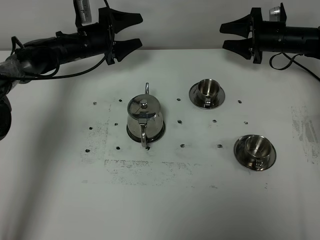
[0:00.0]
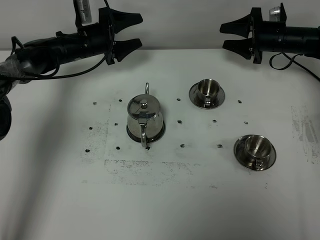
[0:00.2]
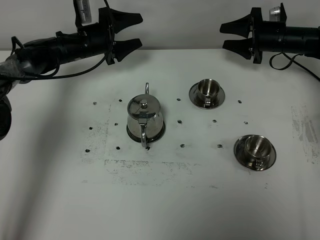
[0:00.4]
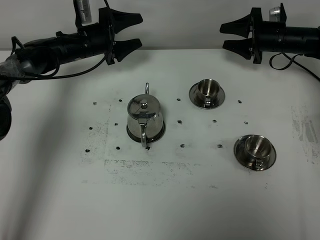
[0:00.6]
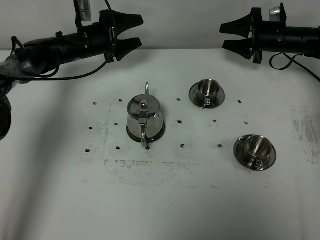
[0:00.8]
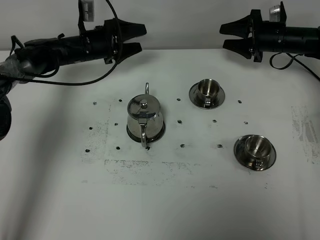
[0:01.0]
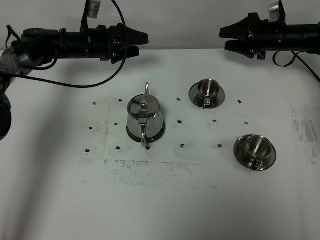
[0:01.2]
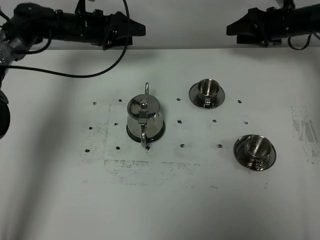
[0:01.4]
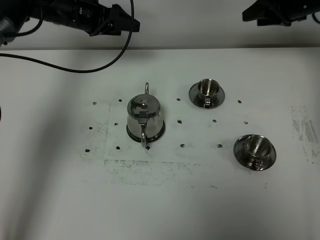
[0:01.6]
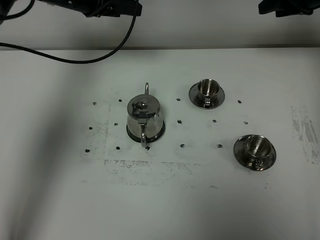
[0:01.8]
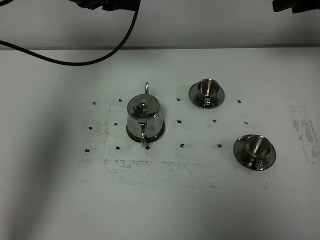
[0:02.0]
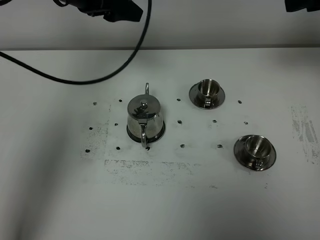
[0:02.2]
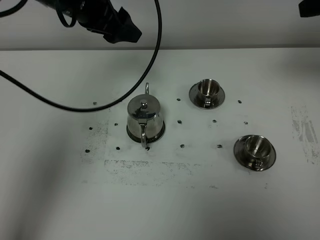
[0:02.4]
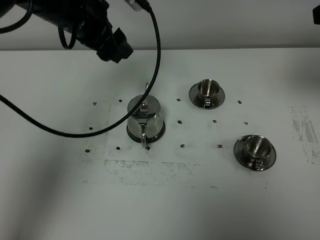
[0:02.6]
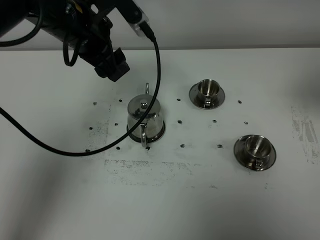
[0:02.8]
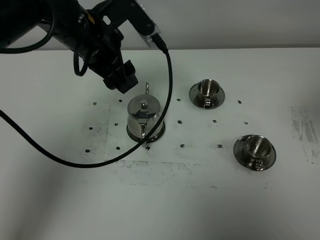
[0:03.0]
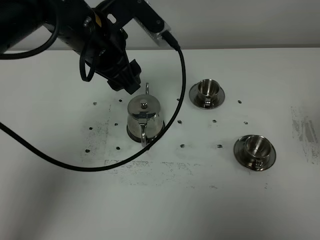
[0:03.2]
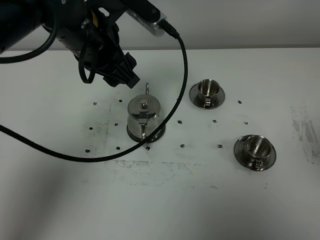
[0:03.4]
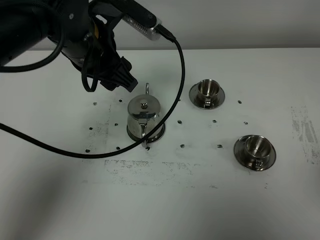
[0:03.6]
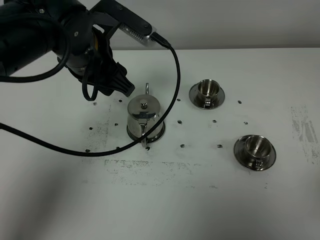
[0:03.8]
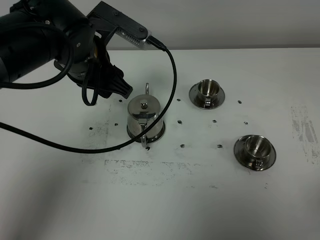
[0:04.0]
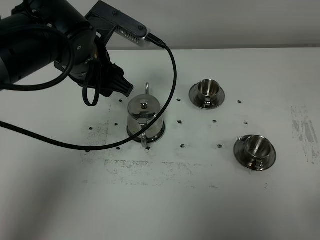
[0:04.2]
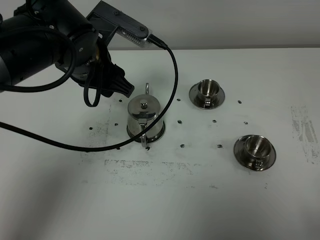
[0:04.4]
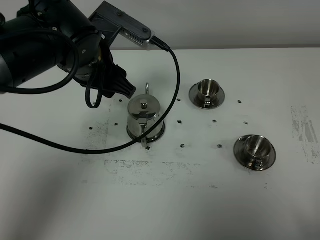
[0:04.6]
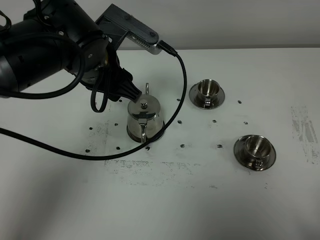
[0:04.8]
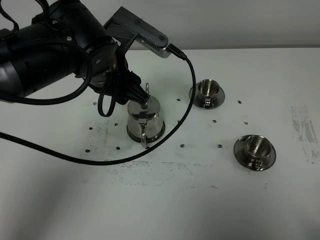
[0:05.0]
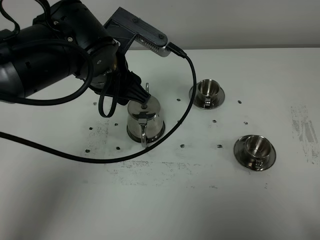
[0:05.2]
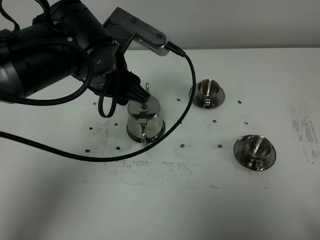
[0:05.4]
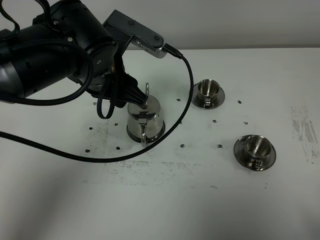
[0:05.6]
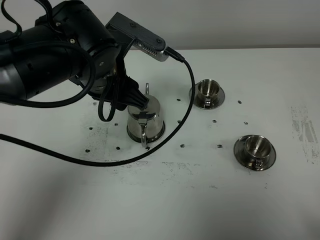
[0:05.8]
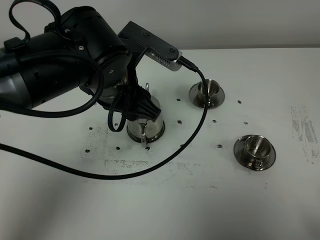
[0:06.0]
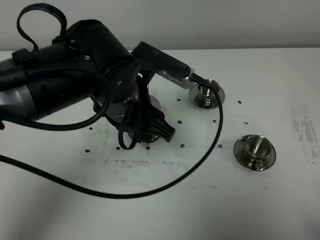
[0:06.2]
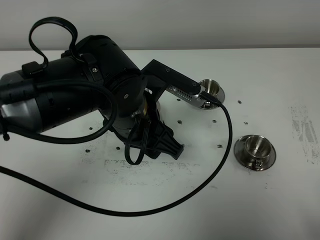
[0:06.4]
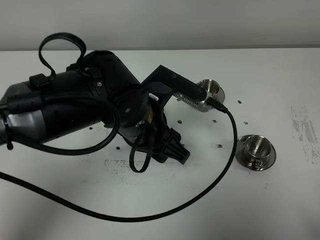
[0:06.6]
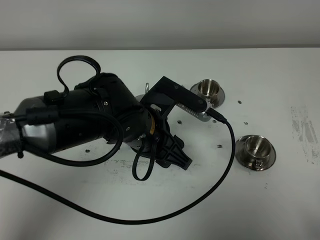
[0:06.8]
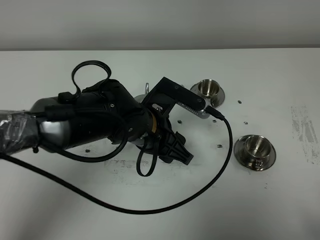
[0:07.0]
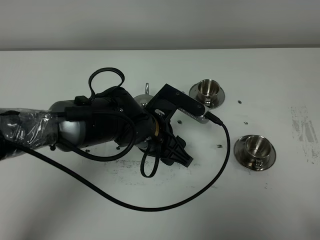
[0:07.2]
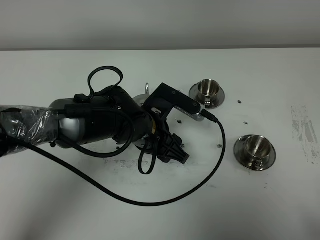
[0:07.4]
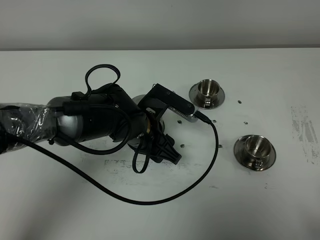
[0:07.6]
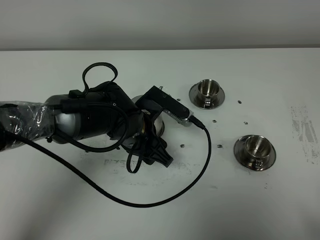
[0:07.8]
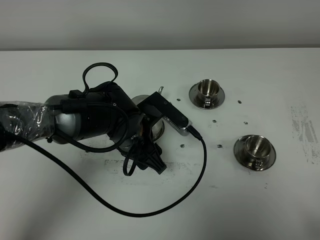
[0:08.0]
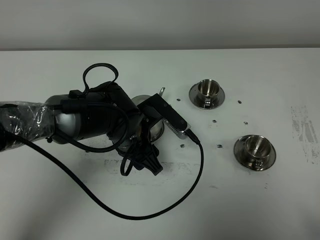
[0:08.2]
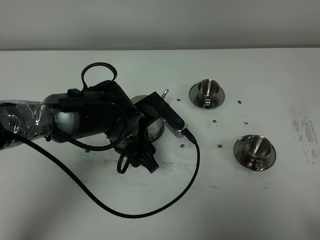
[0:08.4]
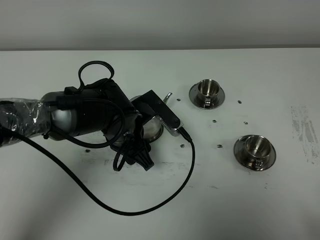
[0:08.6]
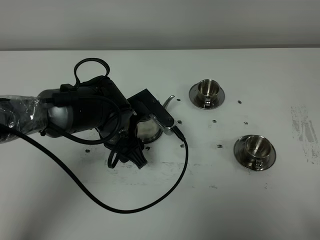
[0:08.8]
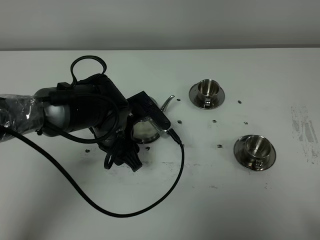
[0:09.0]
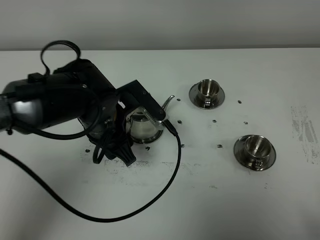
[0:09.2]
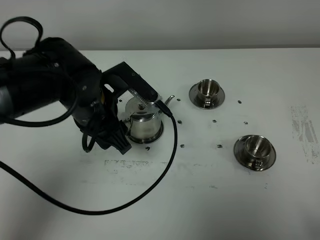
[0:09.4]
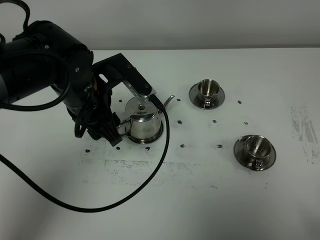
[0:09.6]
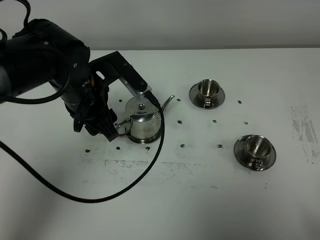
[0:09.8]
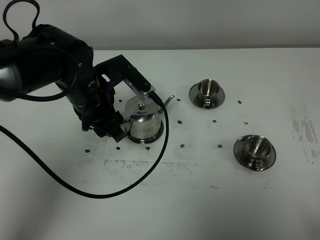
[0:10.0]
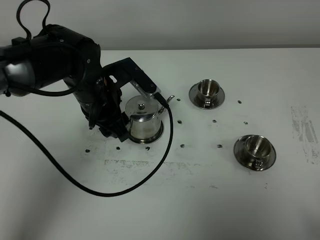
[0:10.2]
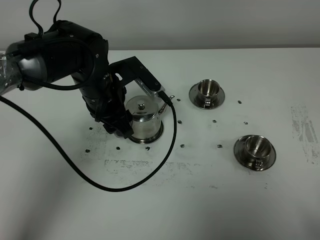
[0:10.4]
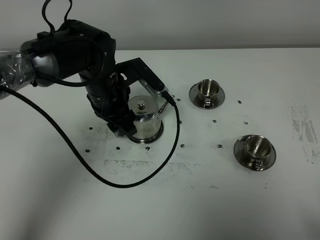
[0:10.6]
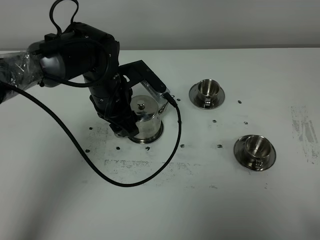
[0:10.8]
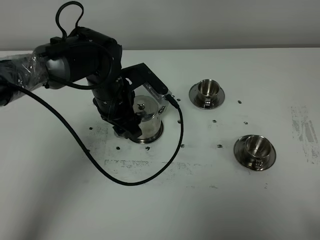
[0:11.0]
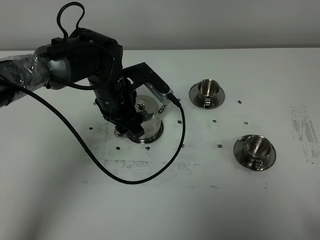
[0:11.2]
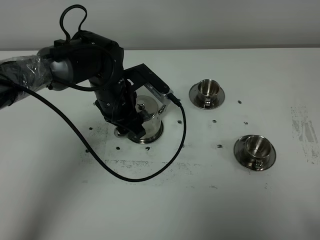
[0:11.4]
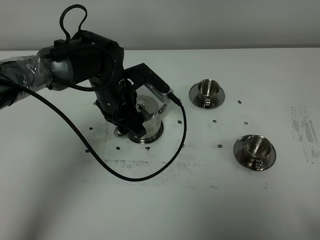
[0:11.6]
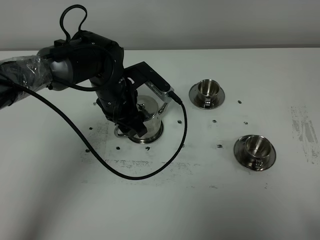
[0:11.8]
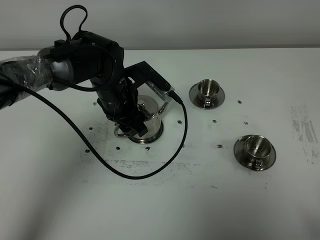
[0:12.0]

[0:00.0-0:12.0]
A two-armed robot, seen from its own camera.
Task of the whole recording: grasp the stainless steel teapot and pour the tea into the two stainless steel teacups one by one, put the stainless steel teapot back in its original place.
0:00.0 to 0:01.6: Both grippers travel together upward, roughly 10 cm.
0:01.6 to 0:03.0: The right gripper heads backward and upward, covering roughly 40 cm; the left gripper goes about 20 cm backward and to the right.
0:03.0 to 0:04.4: The right gripper moves backward and downward, roughly 20 cm.
0:04.4 to 0:06.0: The left gripper moves approximately 5 cm.
0:06.0 to 0:07.6: The left gripper is displaced downward by about 15 cm.
0:09.0 to 0:10.4: The left gripper goes approximately 5 cm forward.
0:10.4 to 0:12.0: There are only small adjustments of the grippers.

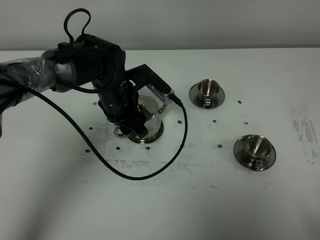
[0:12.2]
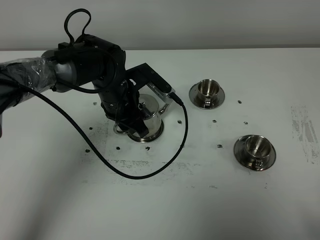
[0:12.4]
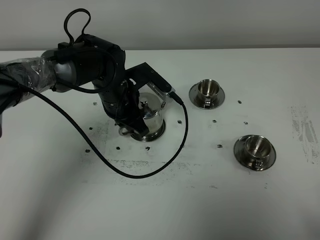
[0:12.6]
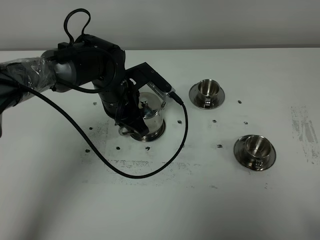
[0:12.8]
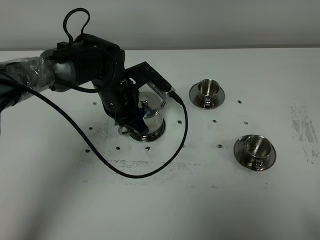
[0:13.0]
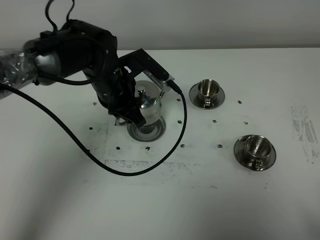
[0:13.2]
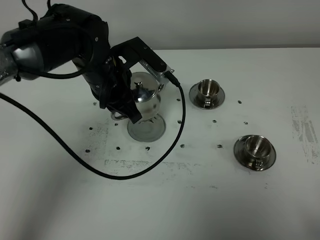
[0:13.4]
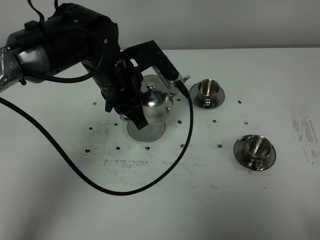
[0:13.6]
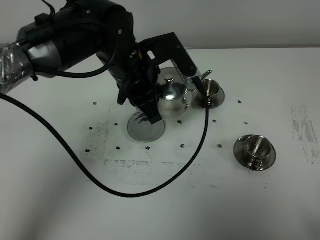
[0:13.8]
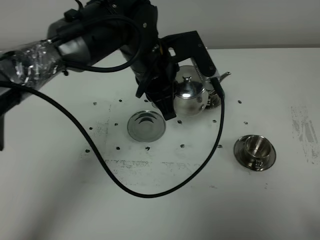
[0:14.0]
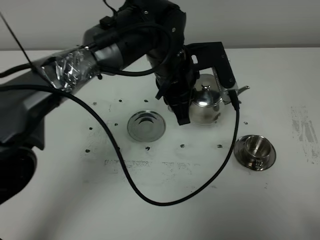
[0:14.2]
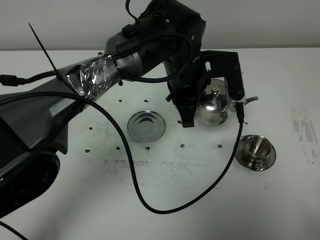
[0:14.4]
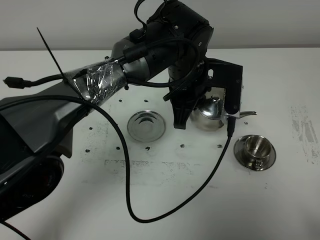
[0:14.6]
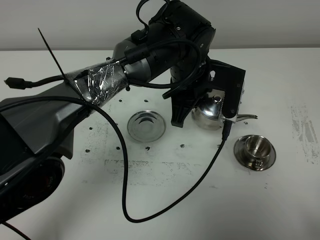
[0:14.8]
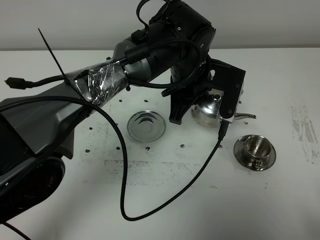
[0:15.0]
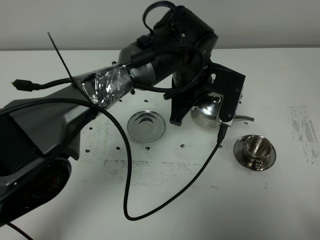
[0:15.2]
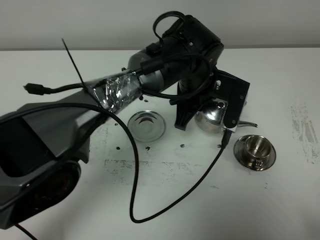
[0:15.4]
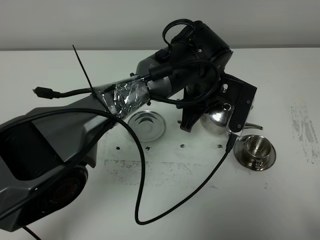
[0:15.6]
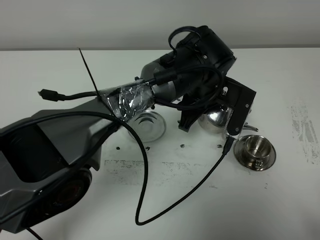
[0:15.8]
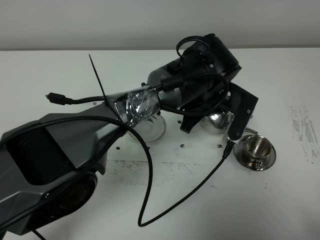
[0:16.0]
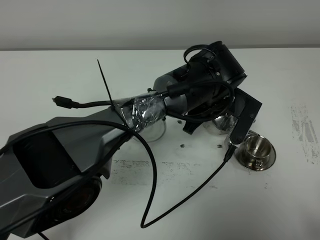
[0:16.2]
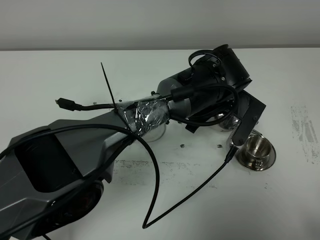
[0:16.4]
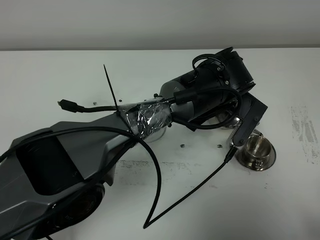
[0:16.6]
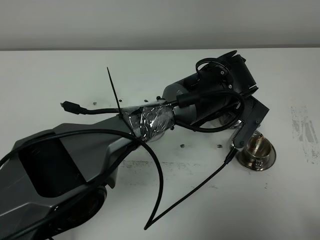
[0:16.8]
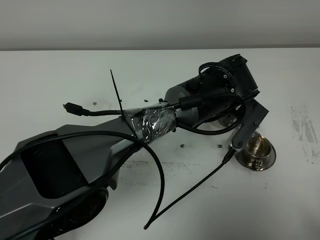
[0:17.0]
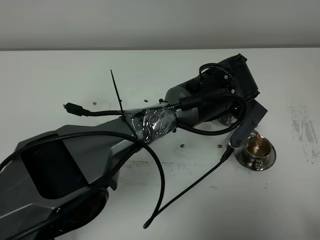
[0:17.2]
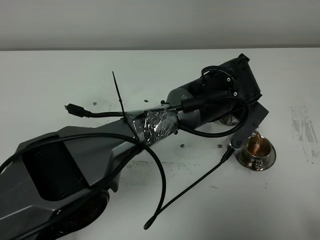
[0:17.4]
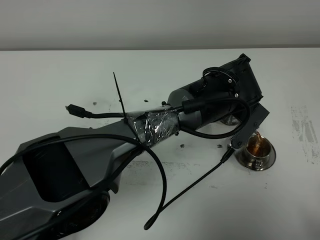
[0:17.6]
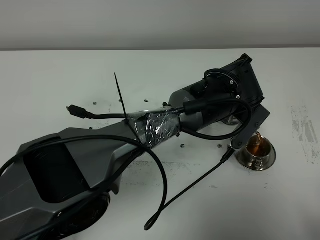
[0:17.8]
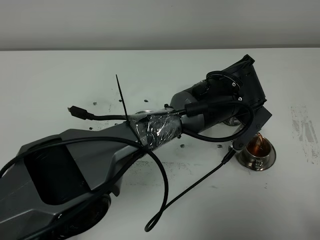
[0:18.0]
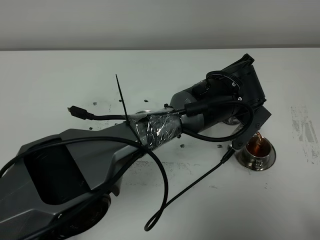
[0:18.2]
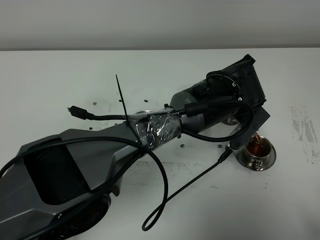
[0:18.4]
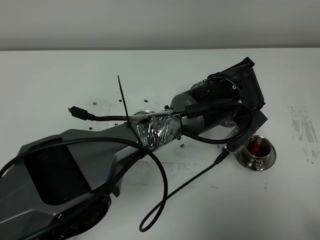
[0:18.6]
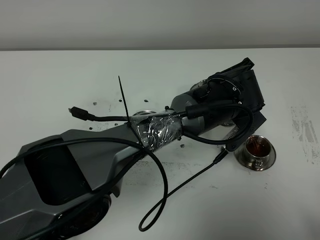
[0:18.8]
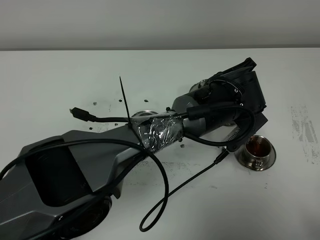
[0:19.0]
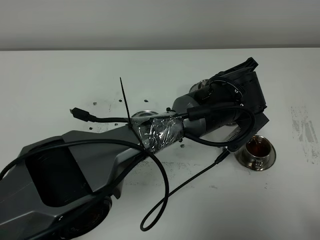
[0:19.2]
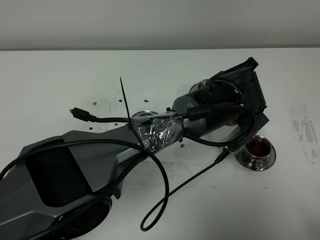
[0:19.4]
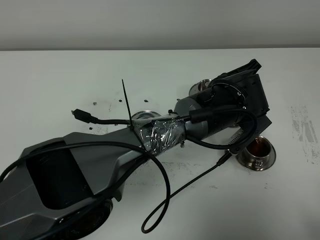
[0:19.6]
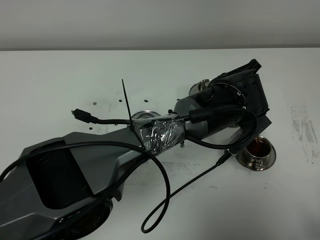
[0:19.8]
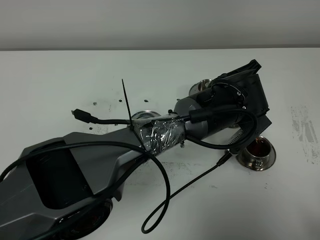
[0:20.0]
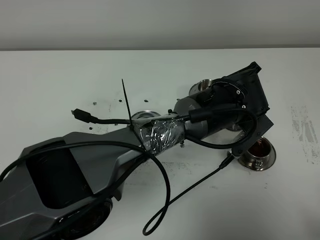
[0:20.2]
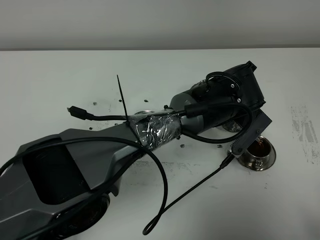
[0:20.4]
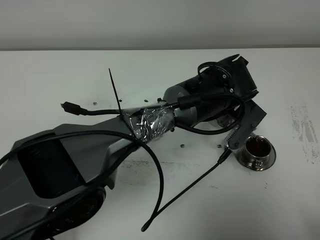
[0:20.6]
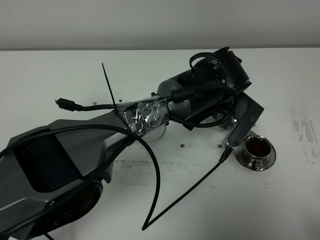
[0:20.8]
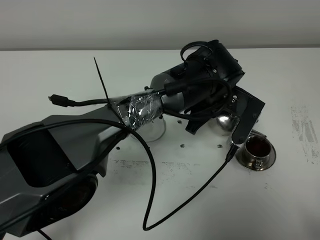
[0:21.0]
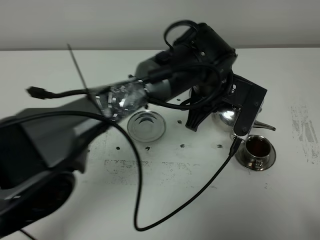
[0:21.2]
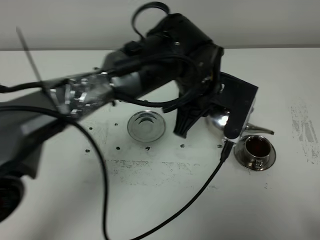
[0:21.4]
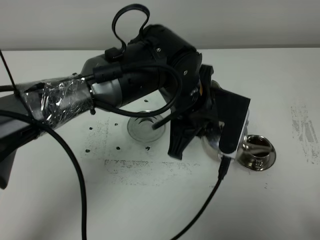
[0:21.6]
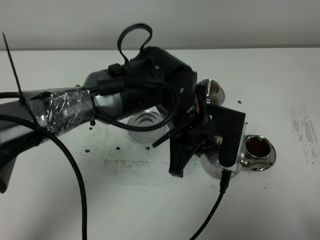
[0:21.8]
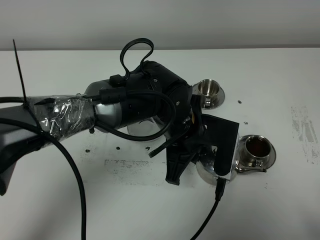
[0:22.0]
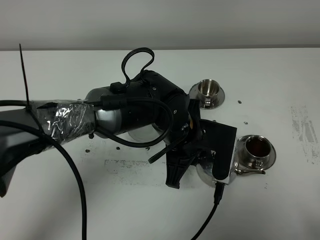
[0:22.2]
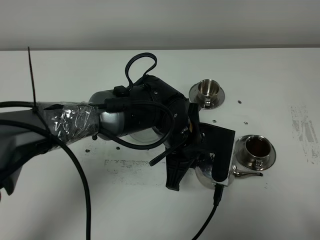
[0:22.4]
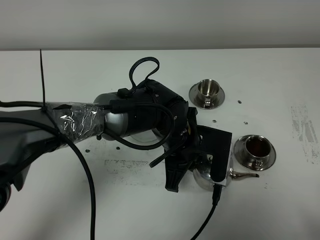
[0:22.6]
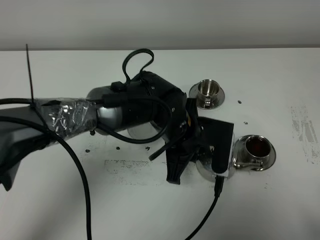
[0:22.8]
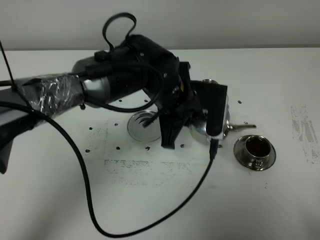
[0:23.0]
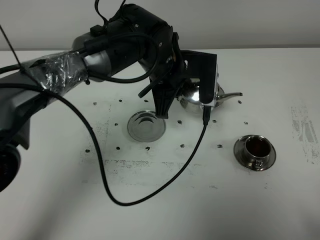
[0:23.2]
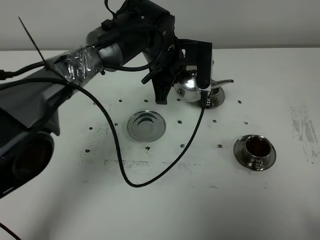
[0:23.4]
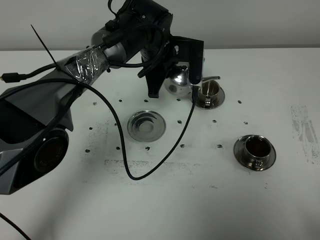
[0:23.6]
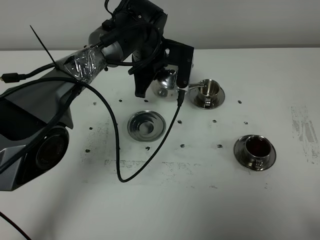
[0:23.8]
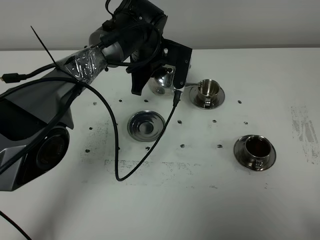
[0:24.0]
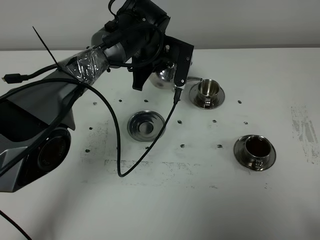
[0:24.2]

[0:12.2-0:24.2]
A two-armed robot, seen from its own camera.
Task of the whole recording: grasp the stainless steel teapot and pour the tea into the two stainless steel teacups one by one, put the stainless steel teapot back in its original place.
0:12.2 to 0:13.8: The left gripper shifts approximately 10 cm upward, and closes up.
0:13.8 to 0:15.2: The left gripper is displaced to the right by approximately 10 cm.
0:15.2 to 0:16.6: The left gripper shifts roughly 5 cm to the right.
0:16.6 to 0:19.8: The grippers stay close to where they were, moving slightly.
0:19.8 to 0:21.2: The left gripper changes place by roughly 5 cm.
0:21.2 to 0:22.6: The left gripper shifts some 10 cm downward, backward and to the left.
0:22.6 to 0:24.2: The left gripper shifts about 20 cm forward.
